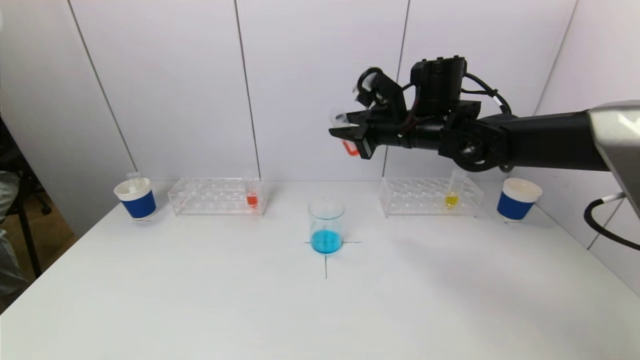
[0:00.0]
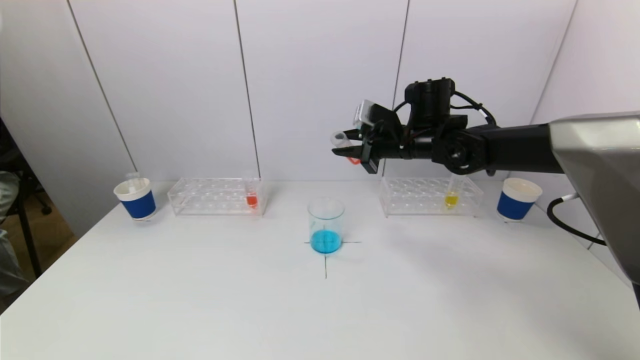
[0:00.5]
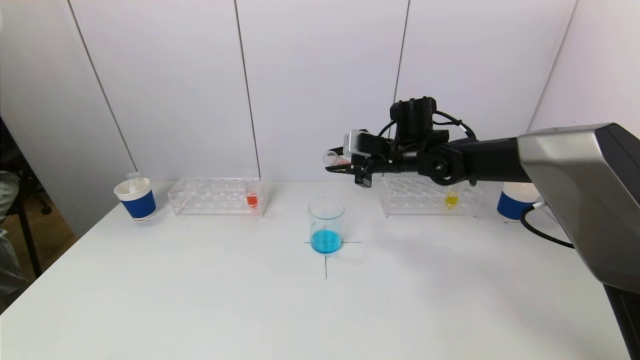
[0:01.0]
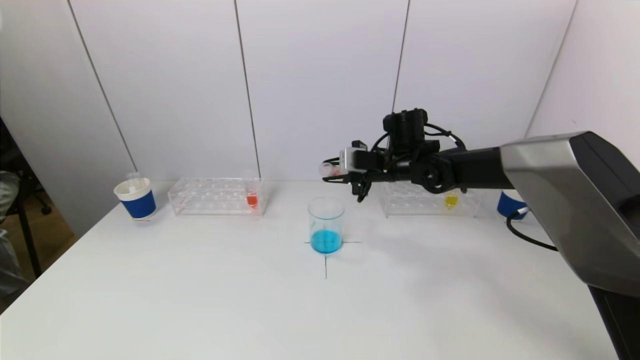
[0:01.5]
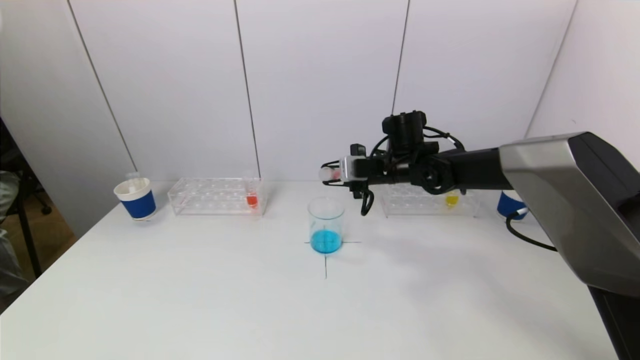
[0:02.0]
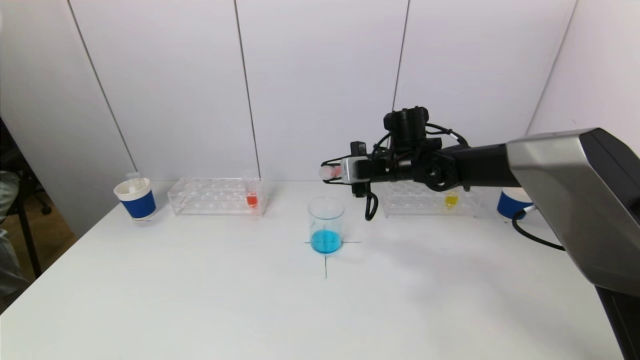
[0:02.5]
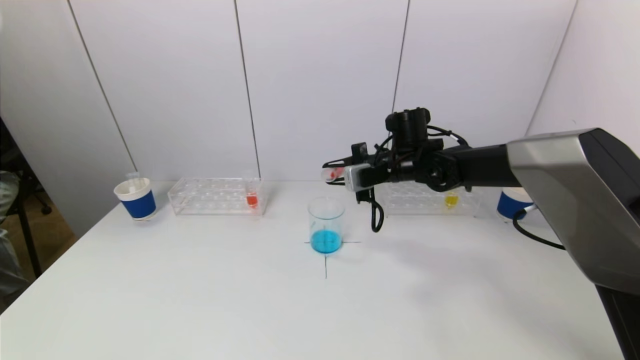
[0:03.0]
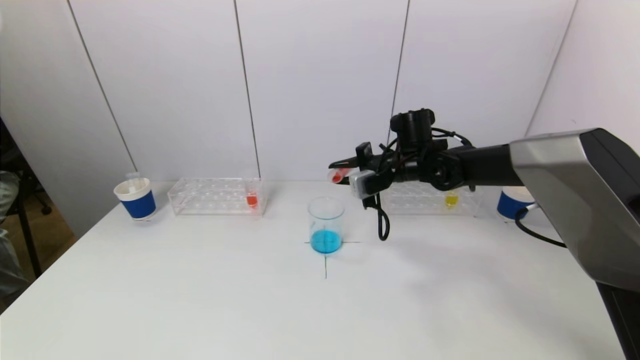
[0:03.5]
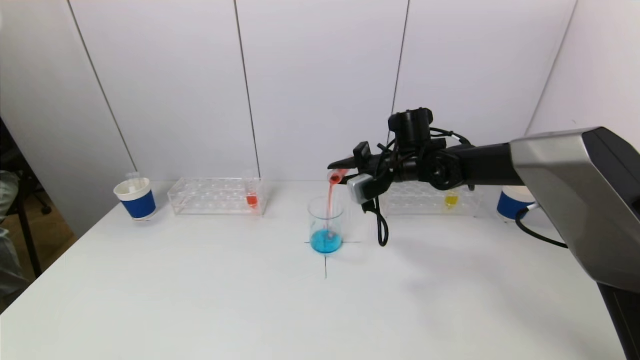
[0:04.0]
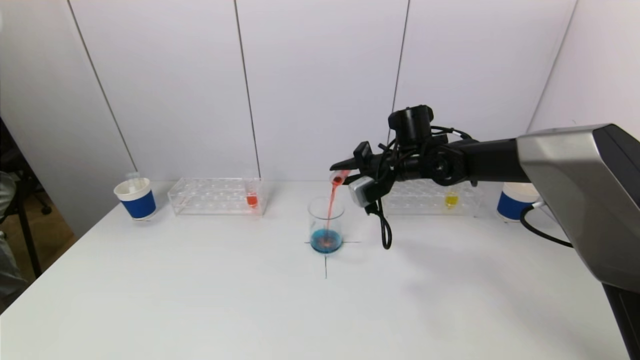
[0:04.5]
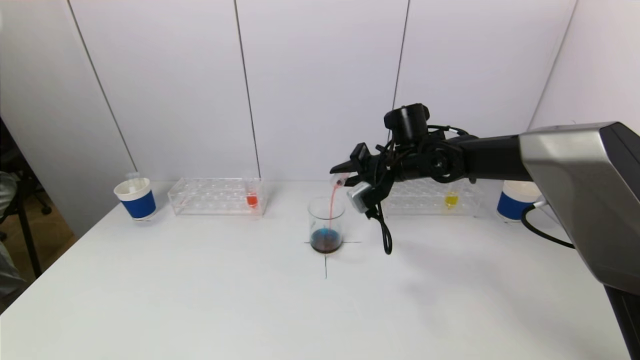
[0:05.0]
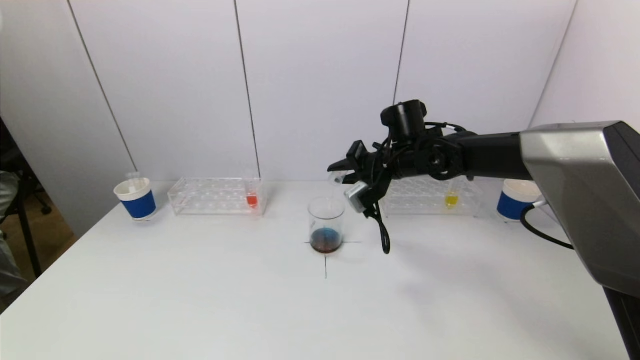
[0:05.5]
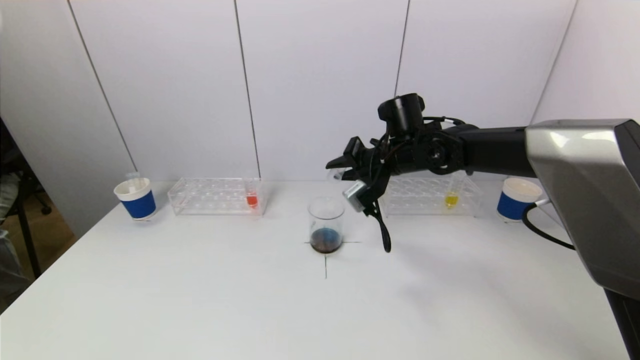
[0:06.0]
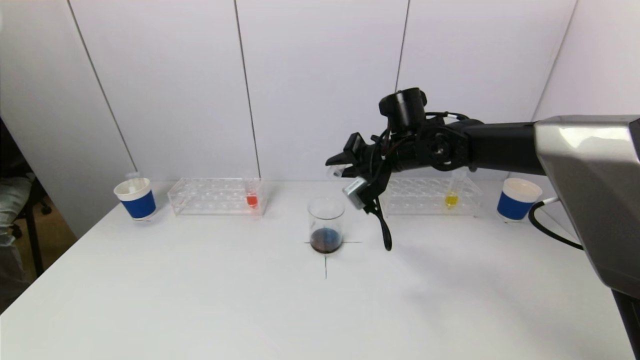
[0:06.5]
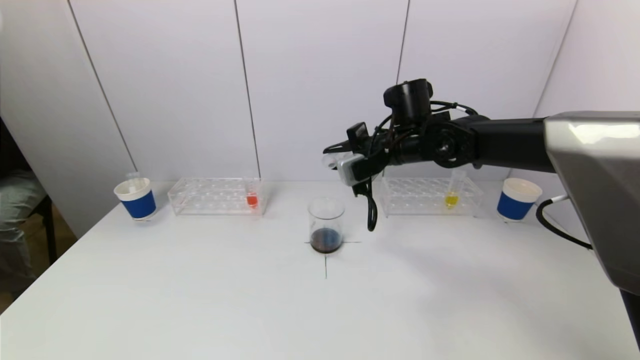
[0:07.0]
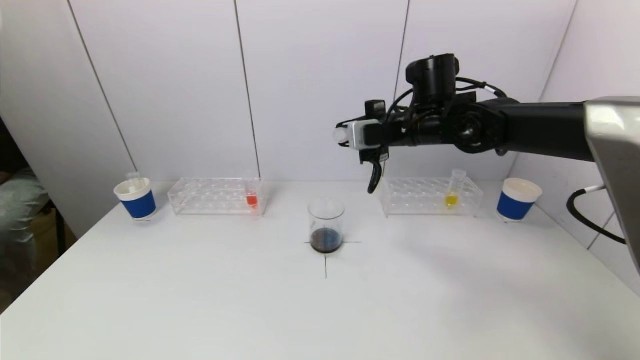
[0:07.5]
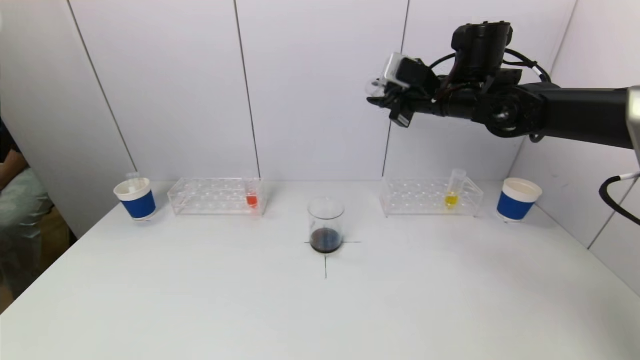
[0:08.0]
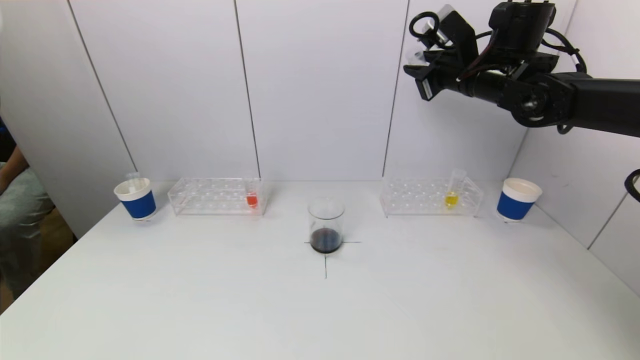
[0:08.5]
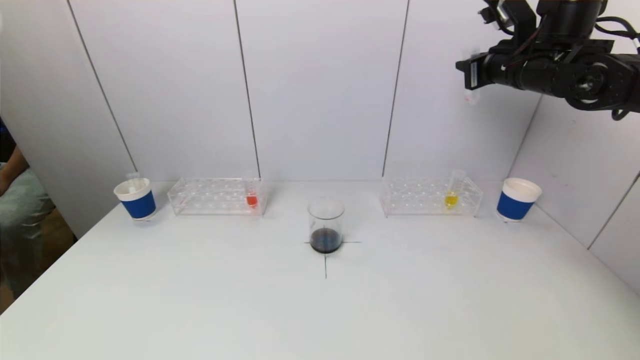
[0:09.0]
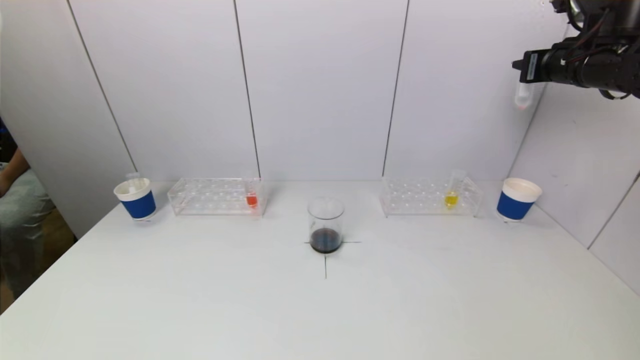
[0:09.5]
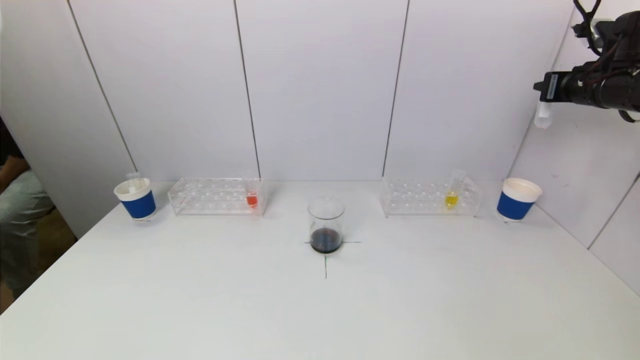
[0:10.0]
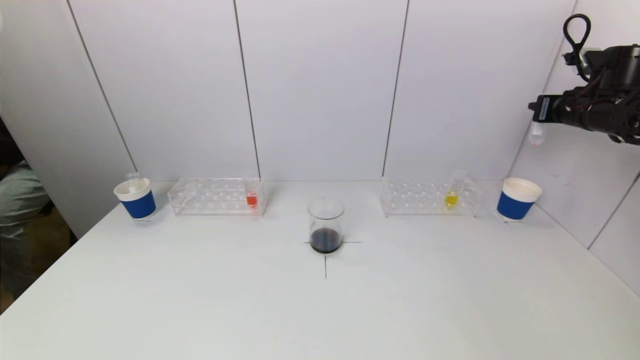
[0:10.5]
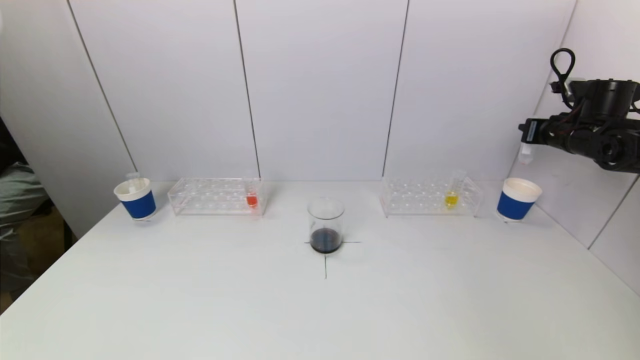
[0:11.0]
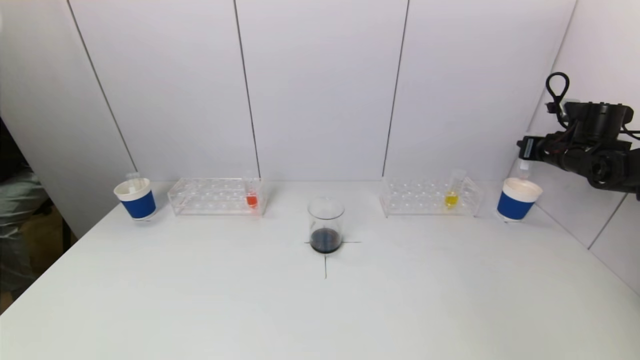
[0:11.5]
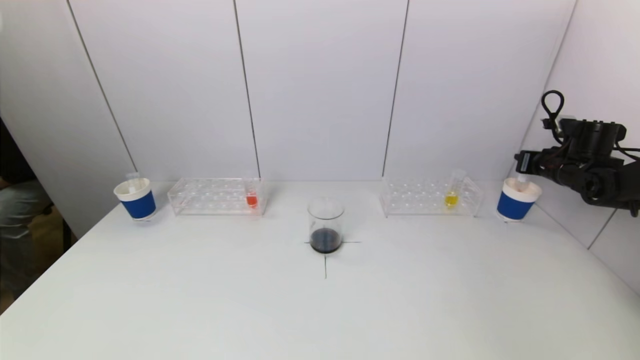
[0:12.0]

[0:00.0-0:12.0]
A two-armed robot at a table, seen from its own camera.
Task of the whole recording: pick up a test tube with pigment on left test tube rack and a test tube with pigment on right test tube rack by grippers and pour them into the beaker.
Step, 0:00.0 to 0:06.0: Pour the red reagent into the graduated cylinder with the right gripper.
0:00.0 to 0:02.0: The right gripper is displaced downward by roughly 10 cm.
0:06.0 to 0:08.0: The right gripper shifts approximately 15 cm upward and to the right.
0:08.0 to 0:10.0: The right gripper moves to the right, approximately 25 cm.
0:10.0 to 0:12.0: The right gripper goes approximately 15 cm downward.

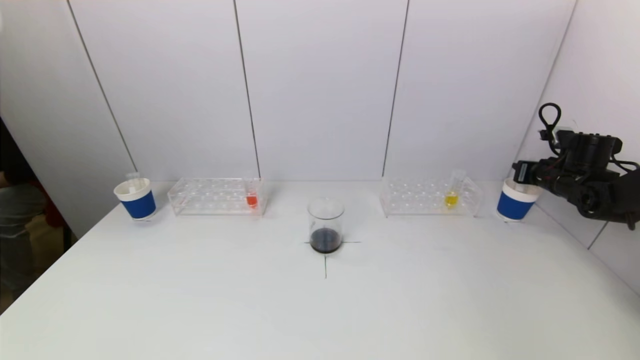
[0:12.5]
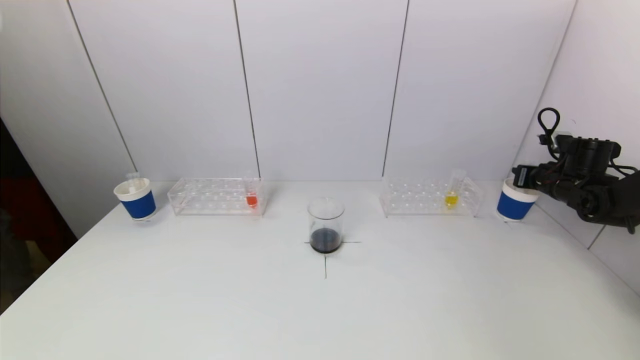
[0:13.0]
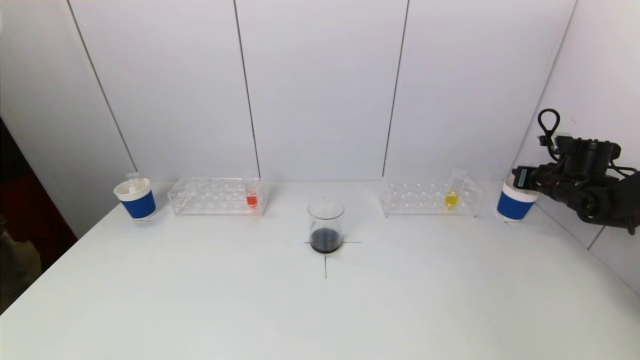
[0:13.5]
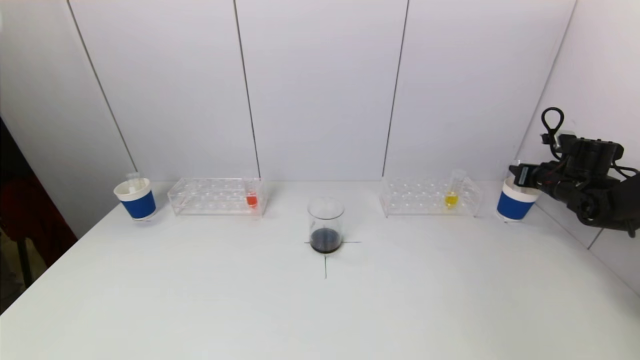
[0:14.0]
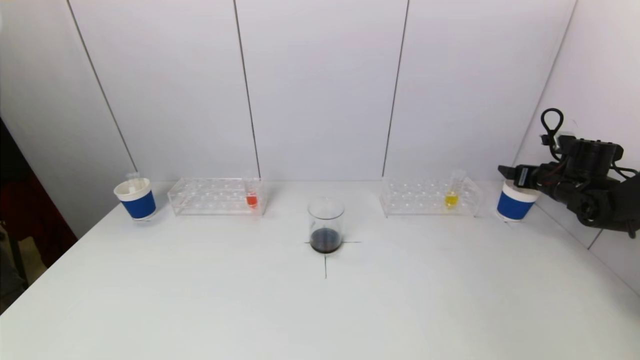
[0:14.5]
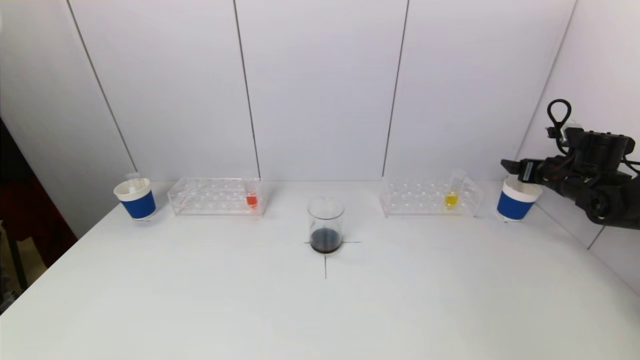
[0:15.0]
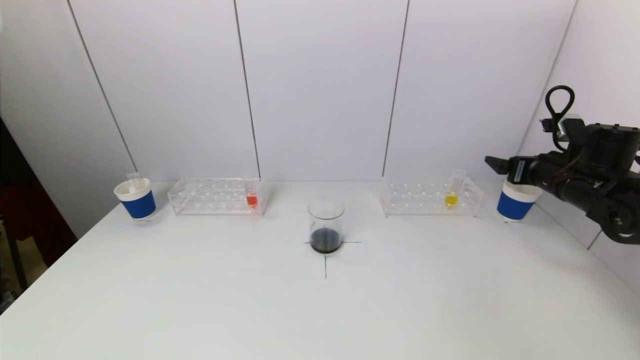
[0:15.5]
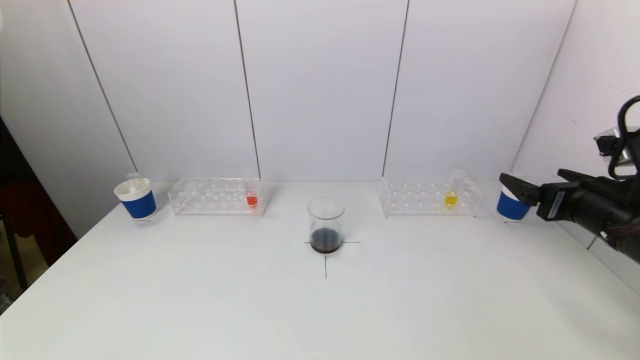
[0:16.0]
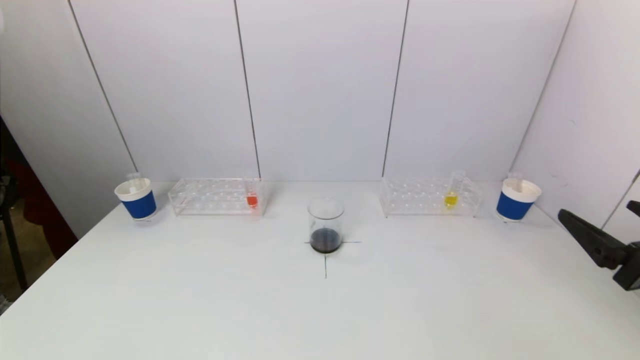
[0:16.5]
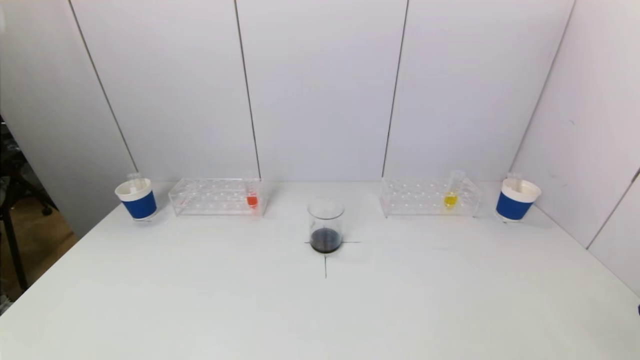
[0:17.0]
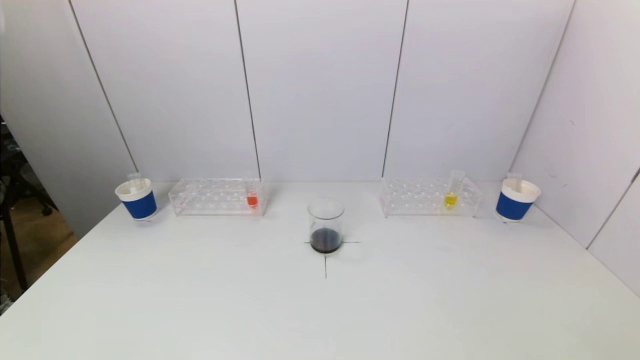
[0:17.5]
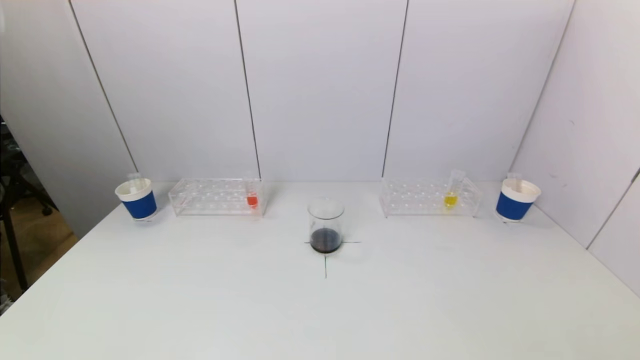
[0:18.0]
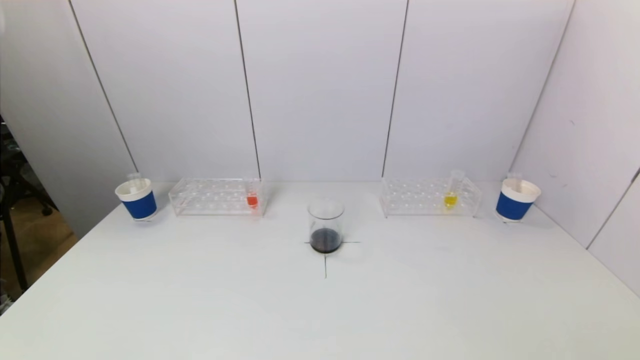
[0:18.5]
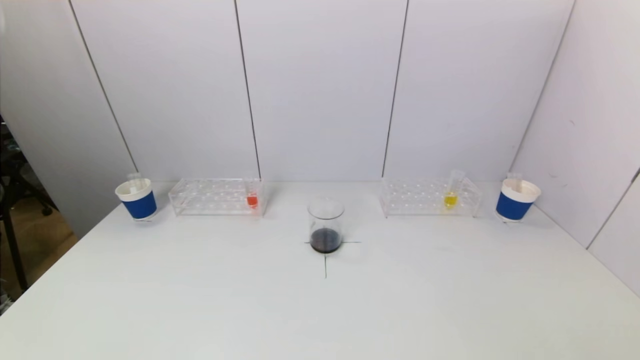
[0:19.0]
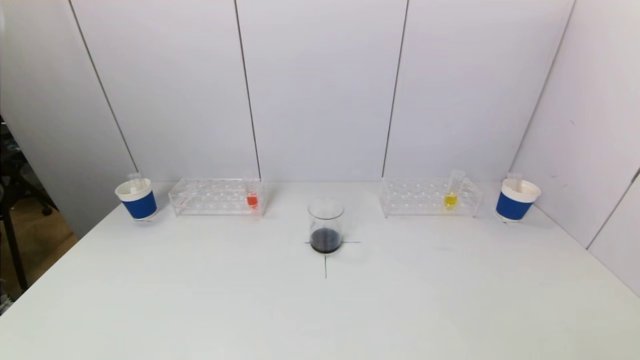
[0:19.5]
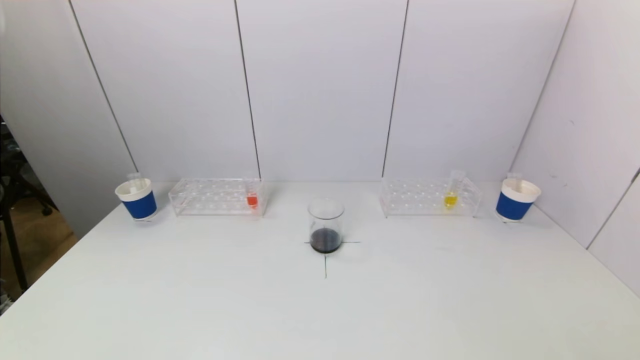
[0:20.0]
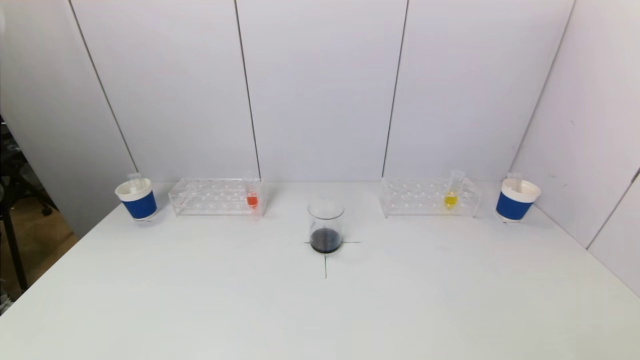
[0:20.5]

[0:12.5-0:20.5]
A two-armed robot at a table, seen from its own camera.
Task of the whole recording: pick up a test tube with pigment on left test tube rack and a test tube with pigment on right test tube rack by grippers and pour them into the beaker.
0:12.5 to 0:14.5: The right gripper opens.
0:14.5 to 0:16.5: The right gripper shifts approximately 30 cm backward.
0:16.5 to 0:18.5: The right gripper heads backward and downward, covering some 15 cm.
0:18.5 to 0:20.5: Neither gripper changes place.
